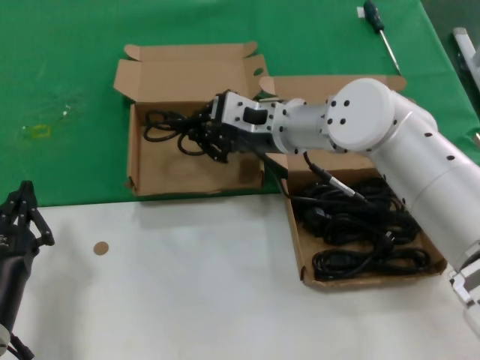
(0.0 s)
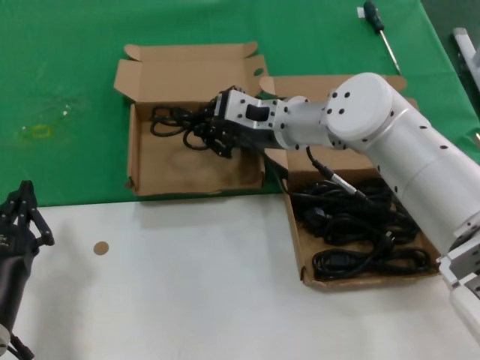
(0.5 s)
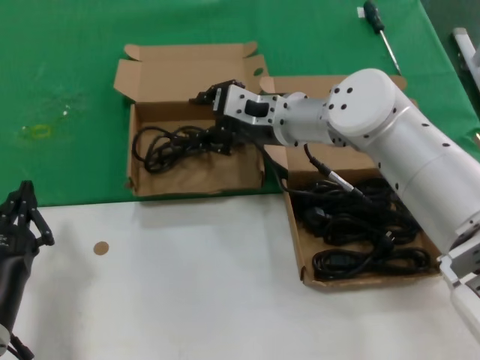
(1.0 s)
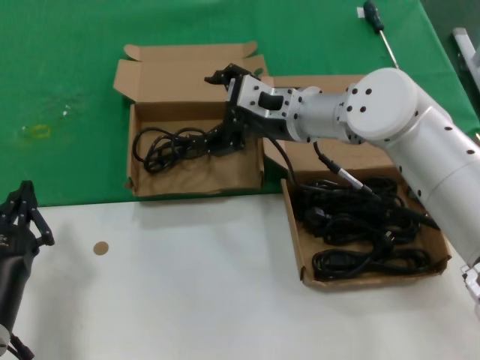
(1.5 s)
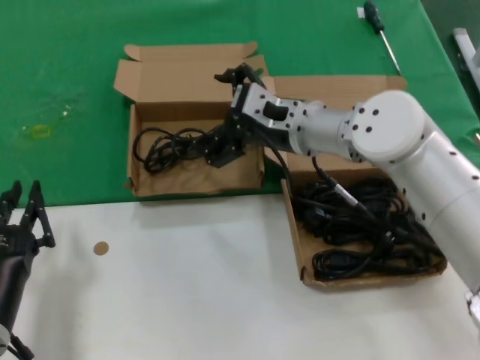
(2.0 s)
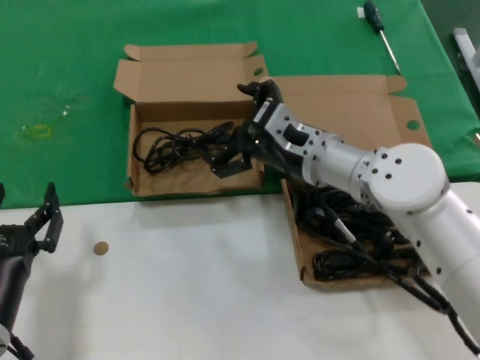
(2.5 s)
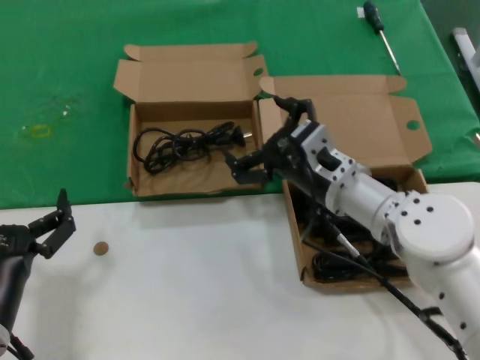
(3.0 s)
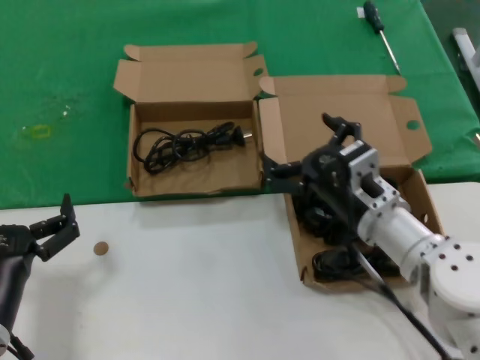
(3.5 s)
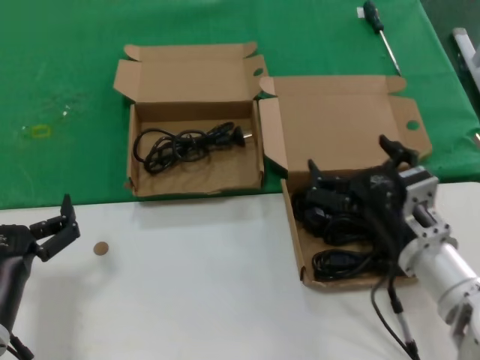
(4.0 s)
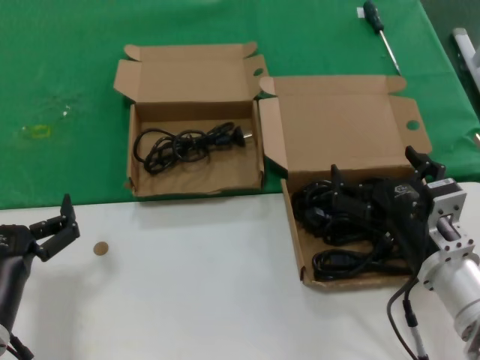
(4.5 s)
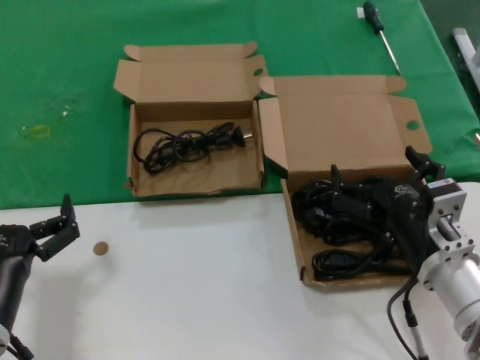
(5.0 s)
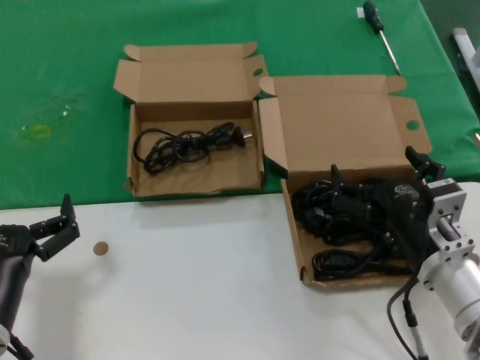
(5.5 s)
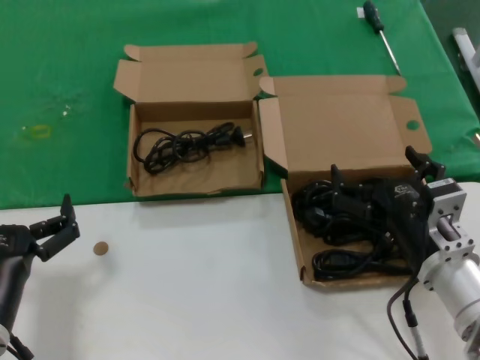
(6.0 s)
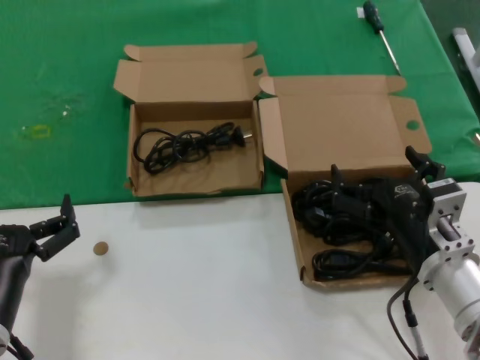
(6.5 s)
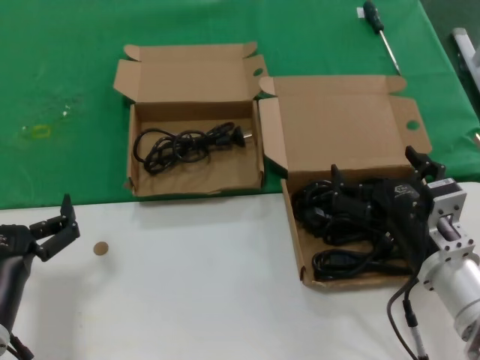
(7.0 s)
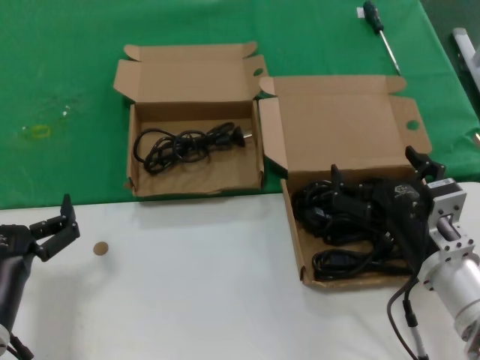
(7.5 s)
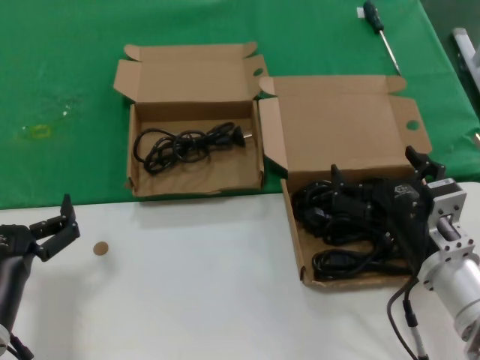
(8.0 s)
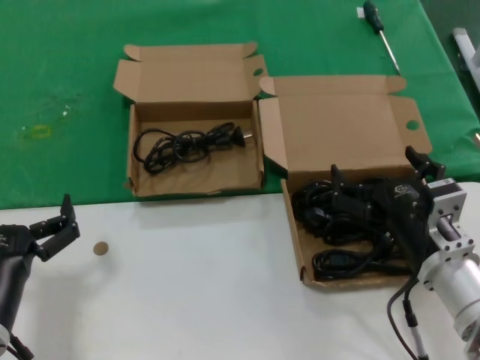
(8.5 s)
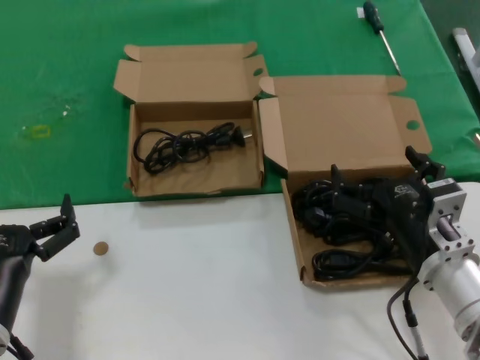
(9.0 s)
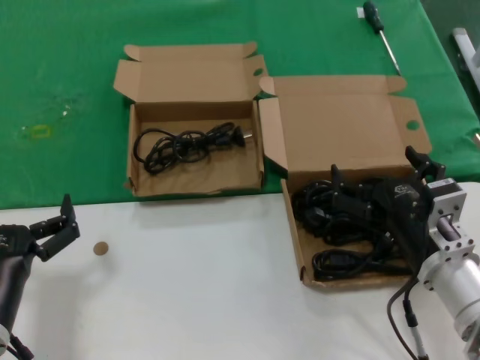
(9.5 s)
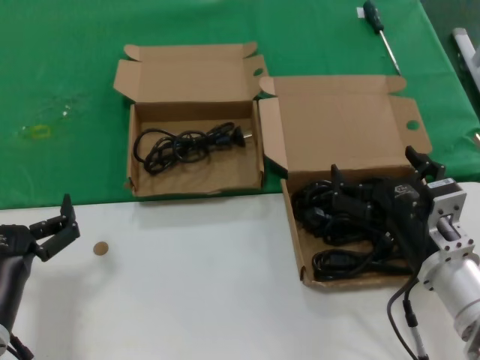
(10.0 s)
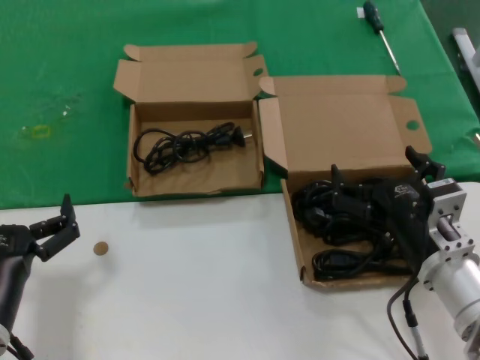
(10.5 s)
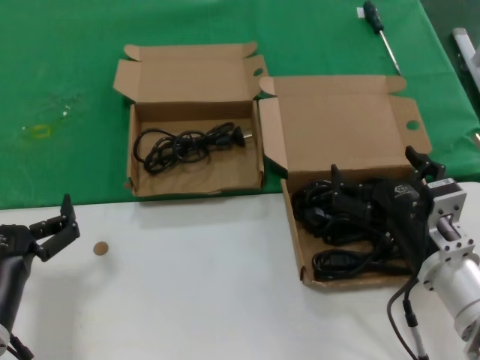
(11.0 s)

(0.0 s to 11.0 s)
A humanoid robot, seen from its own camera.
Task of the whole recording: take the parts from the box containing them and put them into an empty box.
0.0 s - 2.0 s: The hands move only a little.
2.0 s - 3.5 s: The right hand goes approximately 15 cm backward, downward and to the right.
3.5 s - 5.5 s: The right hand travels backward by roughly 10 cm.
5.5 s - 11.0 s: Both hands stay about where they are.

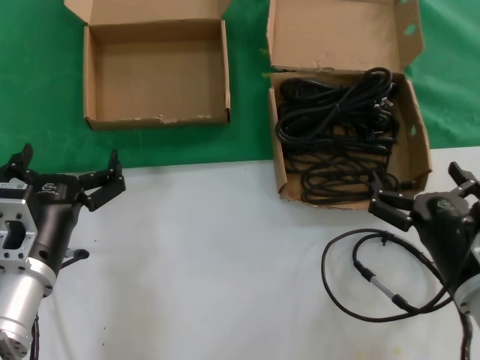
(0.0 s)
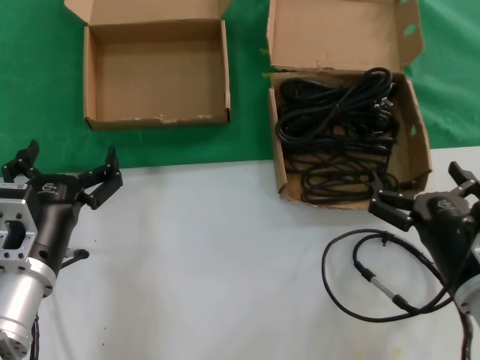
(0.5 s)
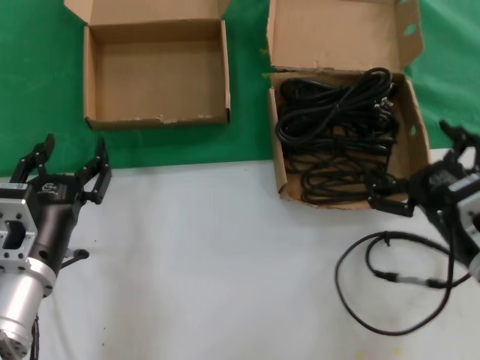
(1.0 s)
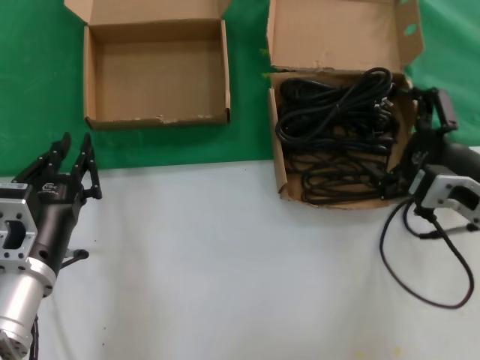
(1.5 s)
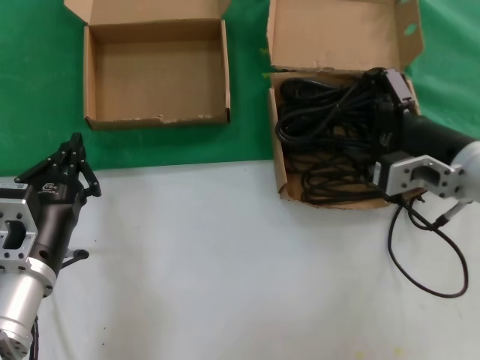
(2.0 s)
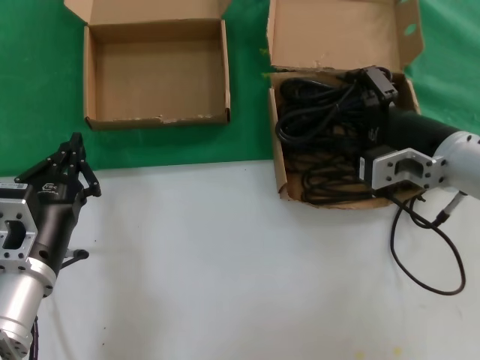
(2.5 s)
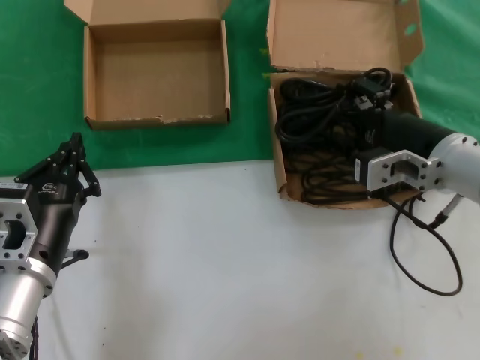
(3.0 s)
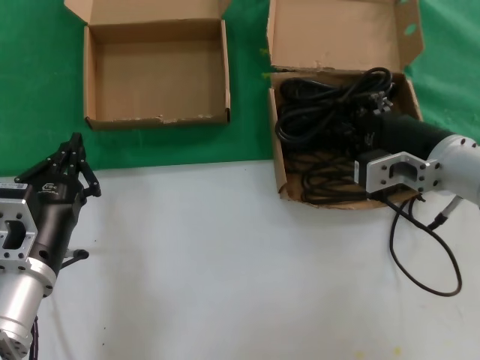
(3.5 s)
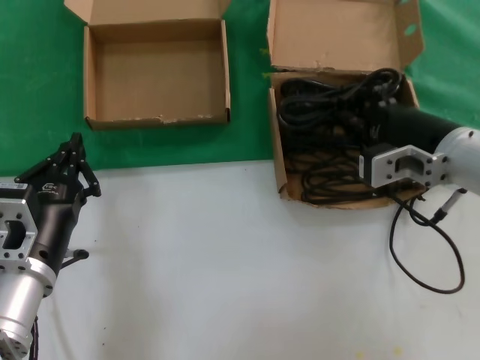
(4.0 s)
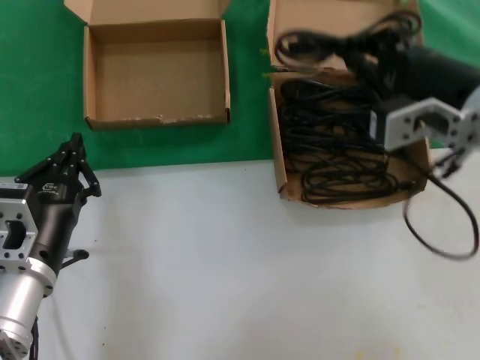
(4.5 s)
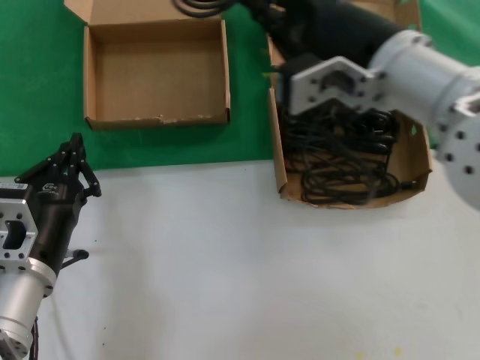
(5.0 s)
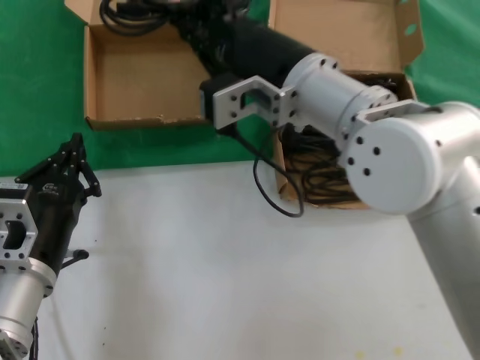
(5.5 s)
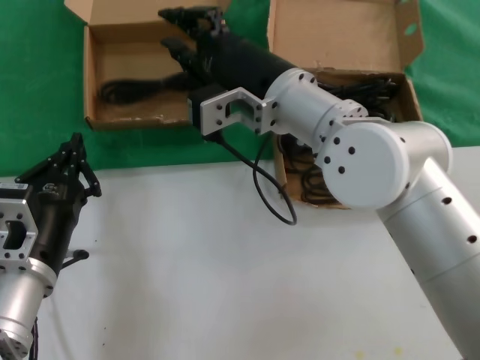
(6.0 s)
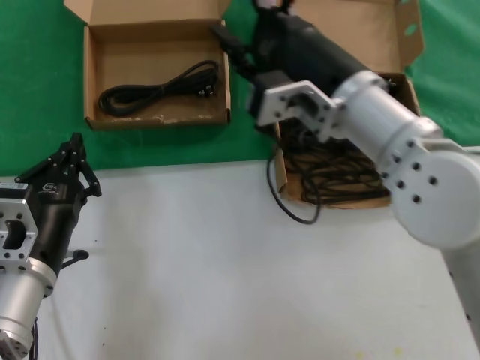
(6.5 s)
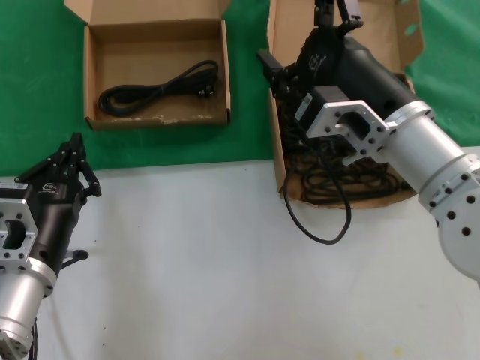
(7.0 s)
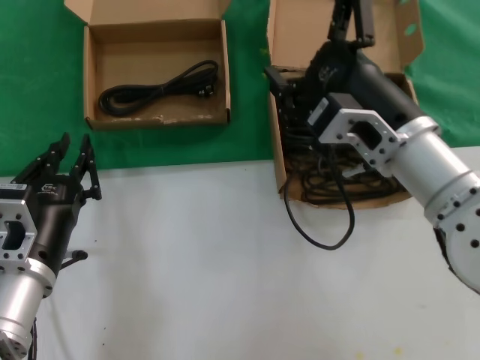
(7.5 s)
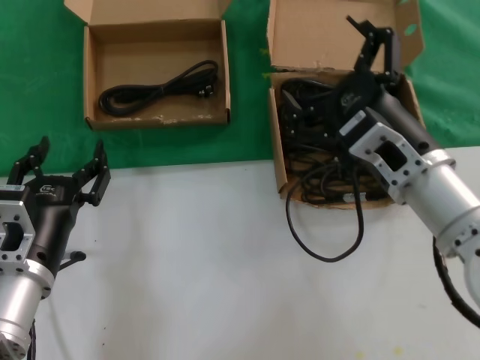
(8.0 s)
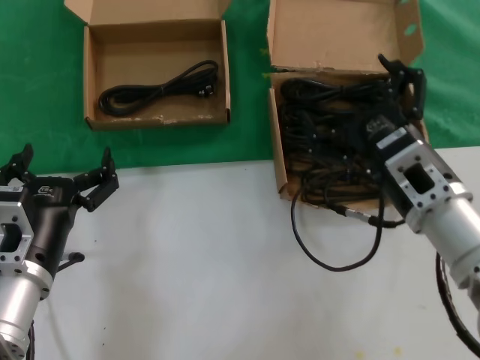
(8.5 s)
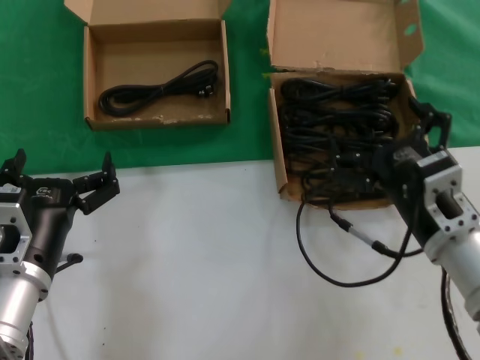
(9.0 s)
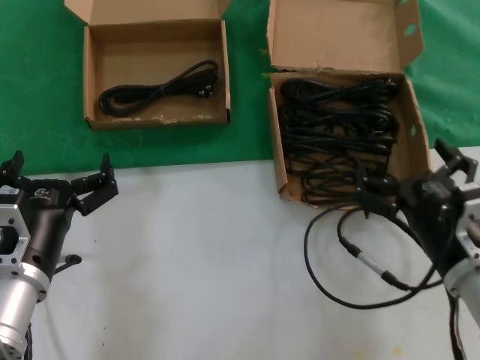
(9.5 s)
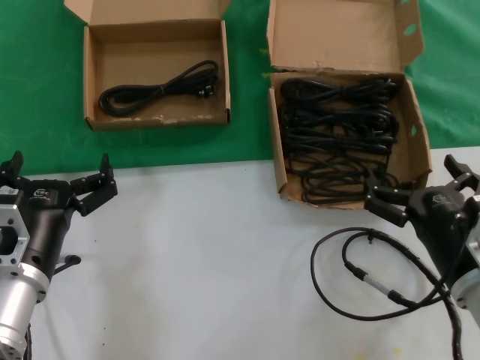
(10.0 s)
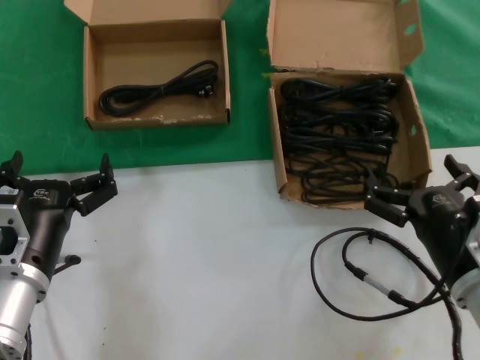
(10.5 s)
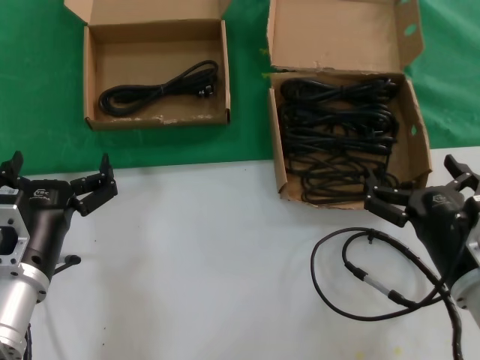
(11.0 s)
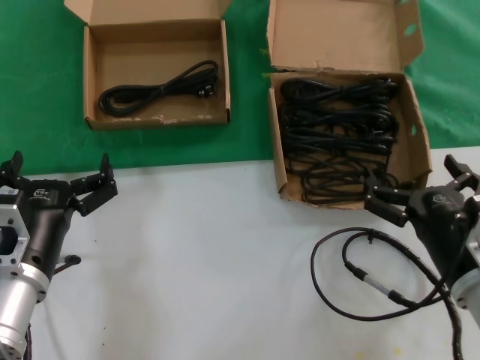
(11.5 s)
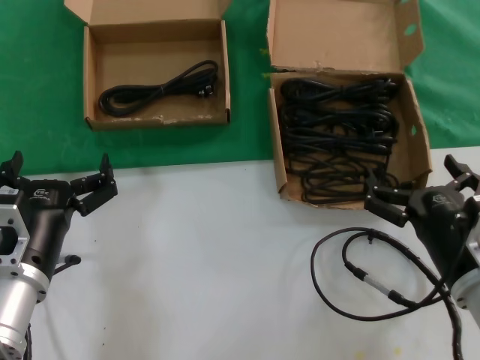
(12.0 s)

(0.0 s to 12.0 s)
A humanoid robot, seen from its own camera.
Task of the whole recording: take the parts from the box containing them and put them into an empty box.
Step, 0.0 s - 3.5 s: Grasp the data cable.
Step, 4.0 s - 5.5 s: Place the data cable in the another box.
0.0 s - 2.0 s: The right hand is displaced upward and forward by some 15 cm.
2.0 s - 4.0 s: The hands stay close to where they were, moving slightly.
4.0 s - 6.0 s: The right hand shifts some 20 cm to the left.
6.0 s - 8.0 s: The right hand heads to the right, backward and downward, covering some 15 cm.
8.0 s - 10.0 s: The right hand is displaced downward, to the right and backward by roughly 15 cm.
10.0 s - 12.0 s: Both hands stay put.

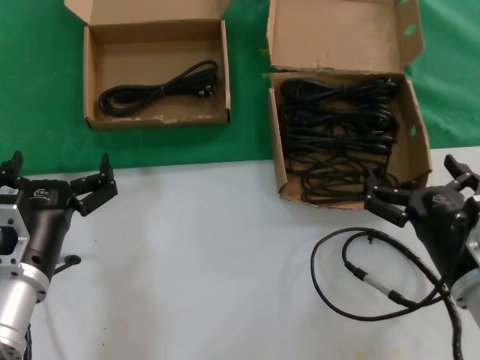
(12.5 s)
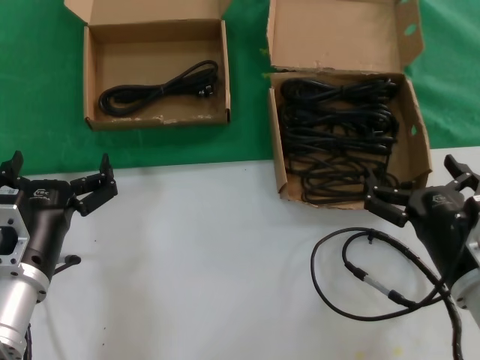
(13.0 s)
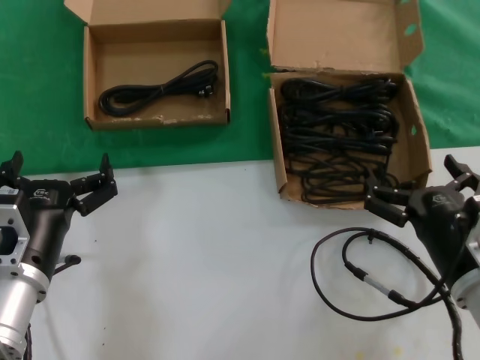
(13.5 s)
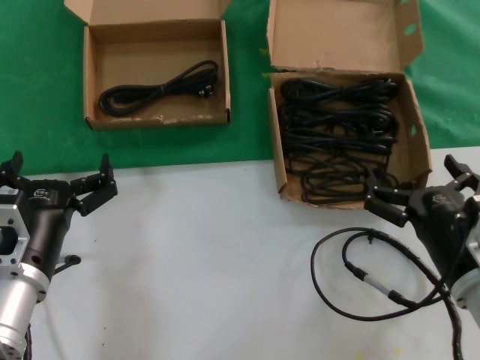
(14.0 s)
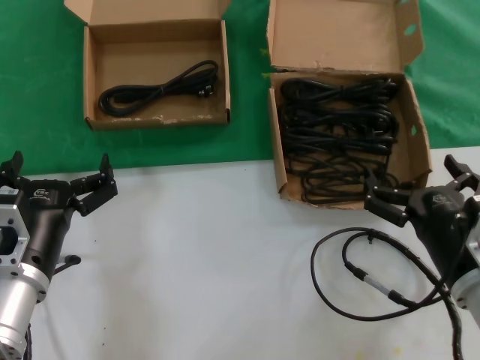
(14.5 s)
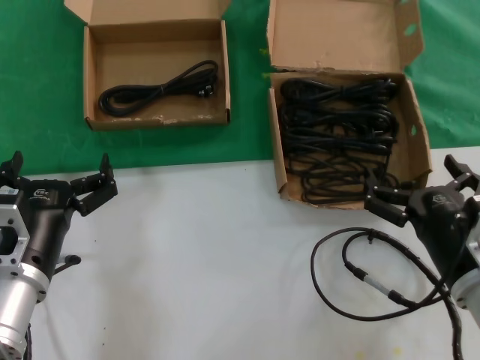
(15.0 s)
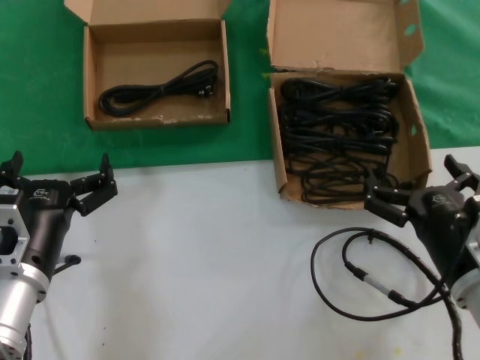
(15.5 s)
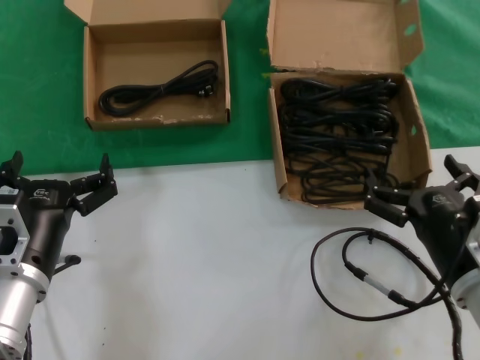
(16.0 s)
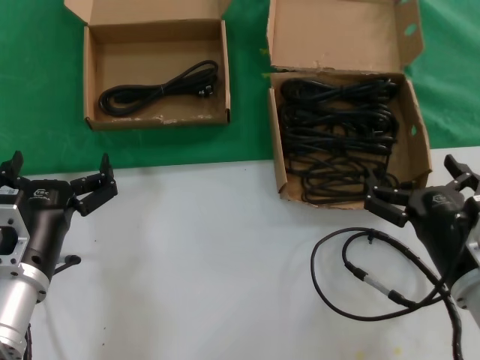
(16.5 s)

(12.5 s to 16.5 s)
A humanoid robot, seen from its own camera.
Task of the whole recording: take the parts from the box containing them and put them into an empty box.
12.5 s - 16.5 s: Both hands stay put.
